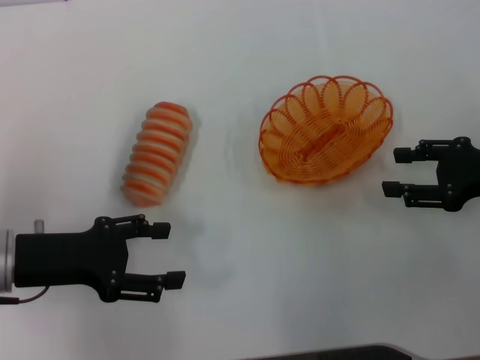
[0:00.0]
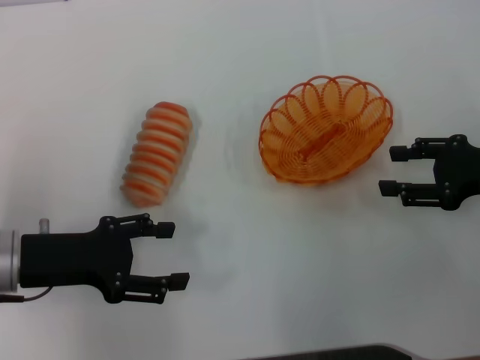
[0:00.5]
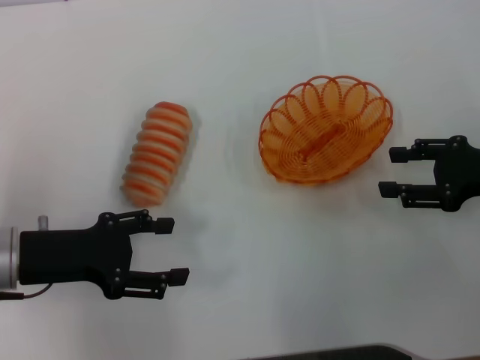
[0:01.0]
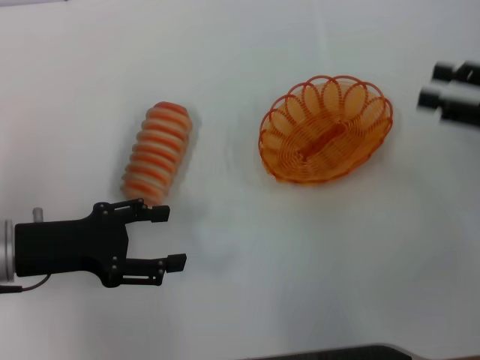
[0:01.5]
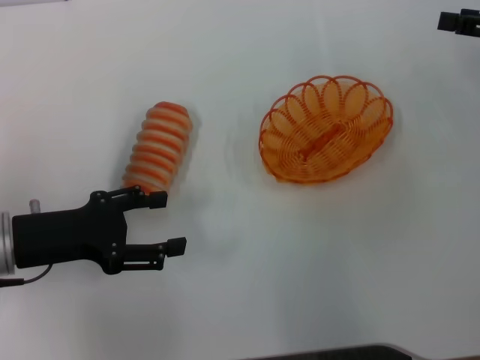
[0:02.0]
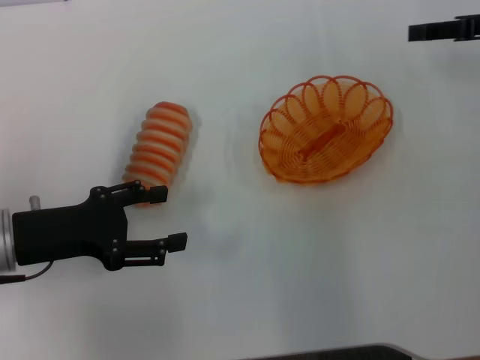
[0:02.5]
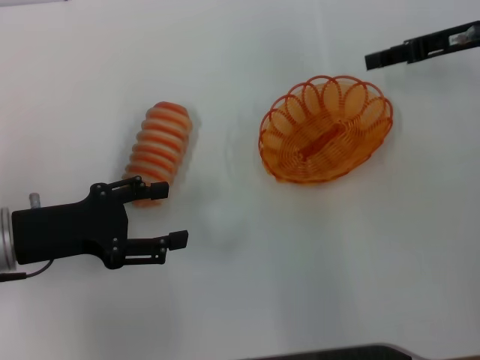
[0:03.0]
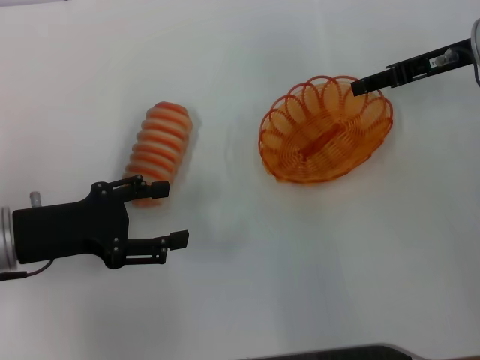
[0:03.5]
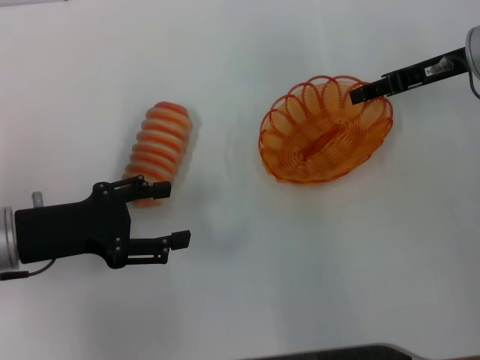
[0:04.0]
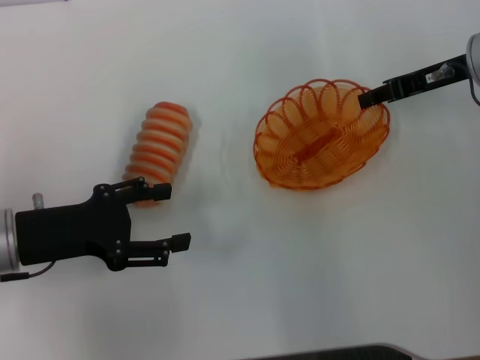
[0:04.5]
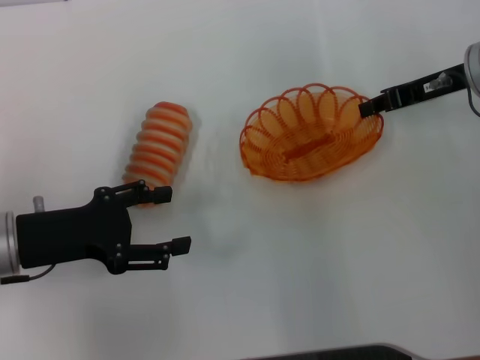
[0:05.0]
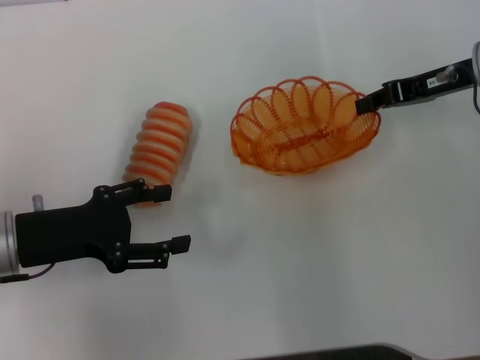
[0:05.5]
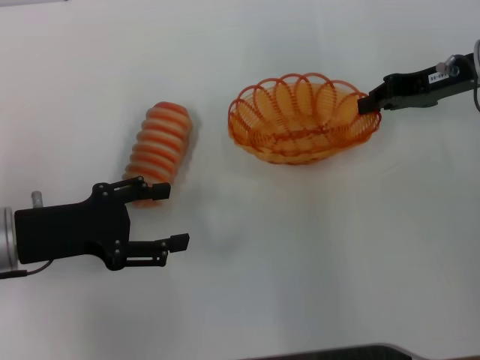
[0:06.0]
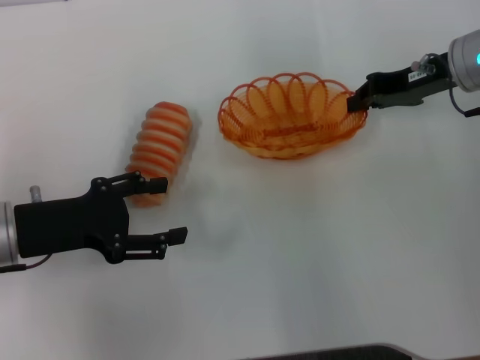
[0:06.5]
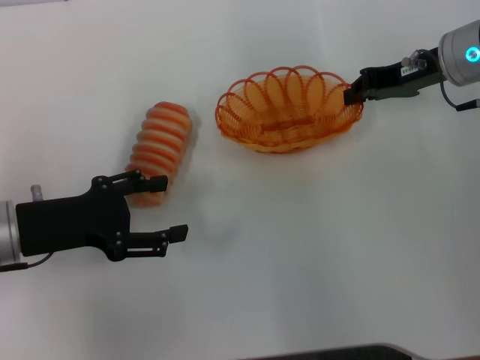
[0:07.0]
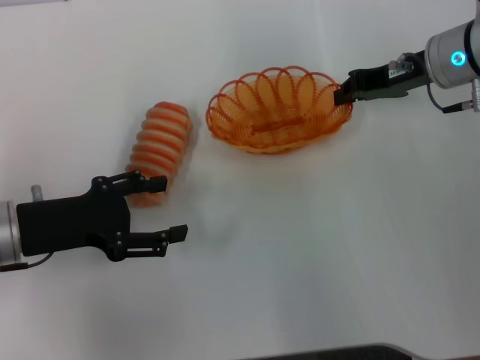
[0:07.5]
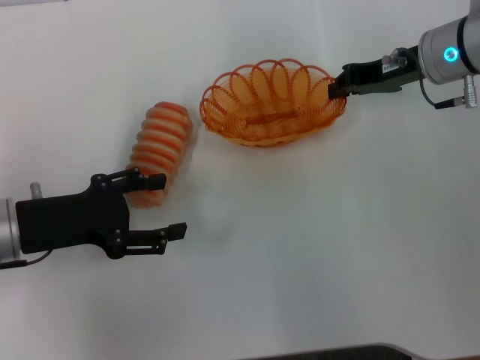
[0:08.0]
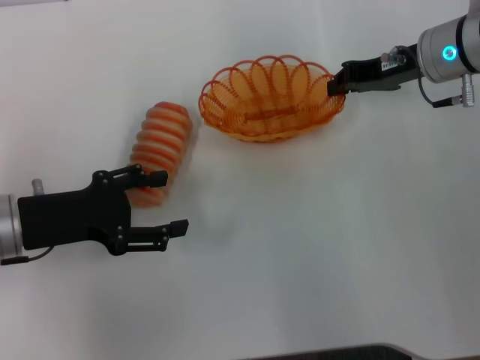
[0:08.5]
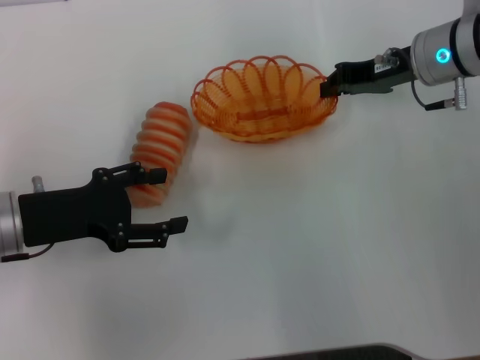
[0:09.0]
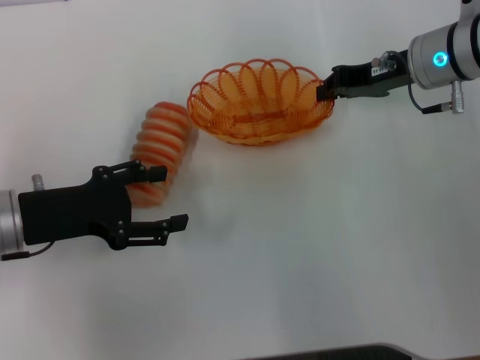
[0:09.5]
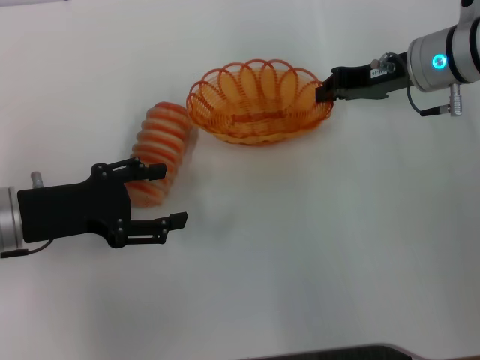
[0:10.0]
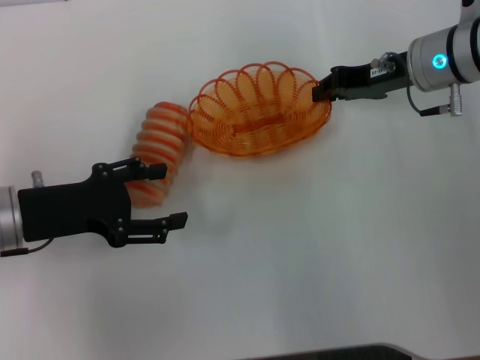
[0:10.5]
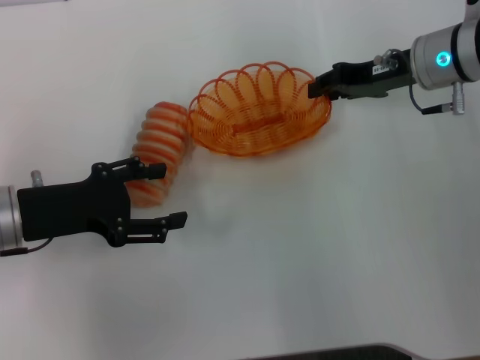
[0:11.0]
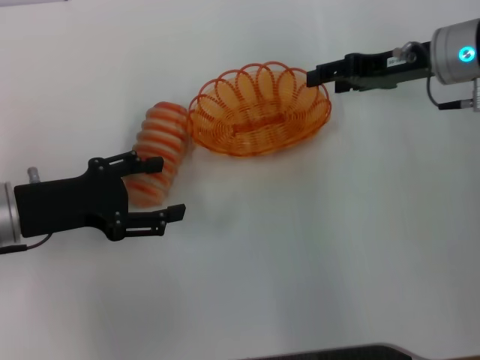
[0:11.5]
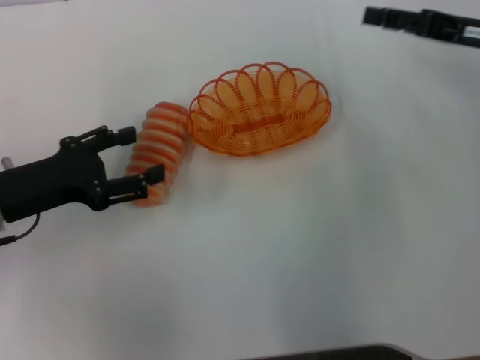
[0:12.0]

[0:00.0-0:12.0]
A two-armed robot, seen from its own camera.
Step, 0:00.0 to 0:05.5: Pick up the basket with the right gripper.
Step, 0:06.0 to 0:11.5: Place the basket in the center of view with the right gripper.
0:00.0 to 0:02.0: The right gripper travels upward and forward by roughly 10 cm.
0:02.0 to 0:04.0: The right gripper goes roughly 10 cm to the left and forward.
0:04.0 to 0:06.0: The right gripper closes up.
0:06.0 to 0:08.0: The right gripper changes place by approximately 5 cm.
0:08.0 to 0:10.0: The two grippers keep their place.
0:10.0 to 0:12.0: The right gripper goes some 10 cm to the right, and opens.

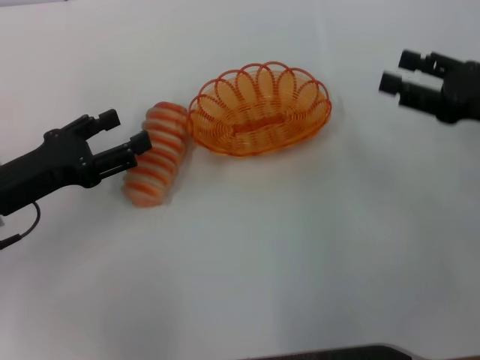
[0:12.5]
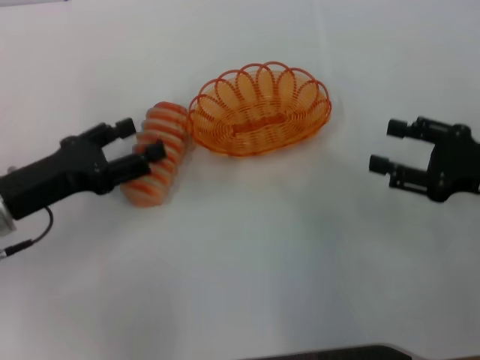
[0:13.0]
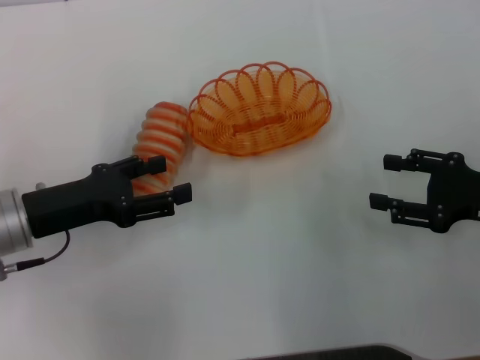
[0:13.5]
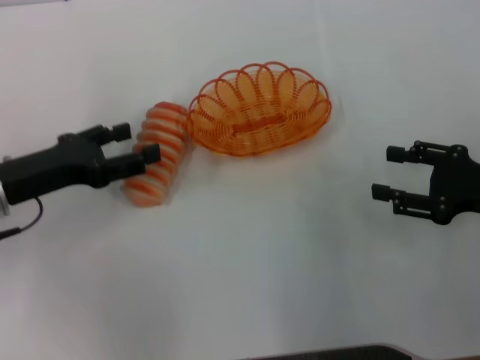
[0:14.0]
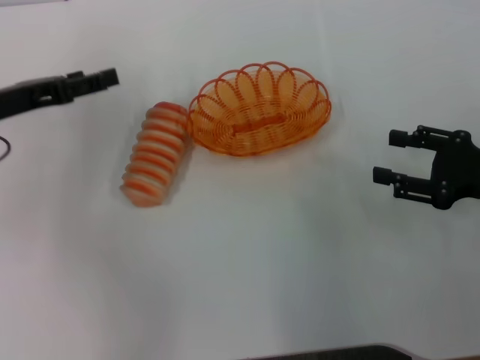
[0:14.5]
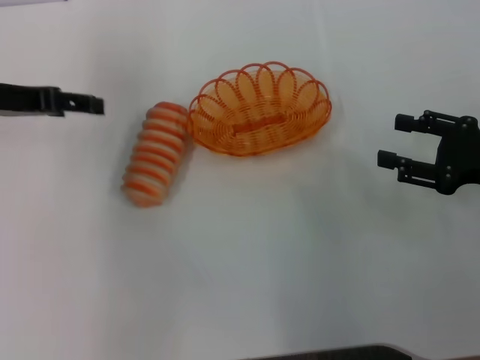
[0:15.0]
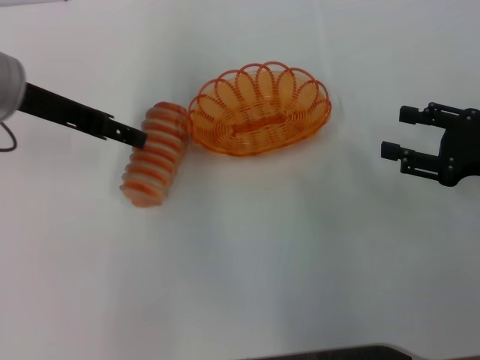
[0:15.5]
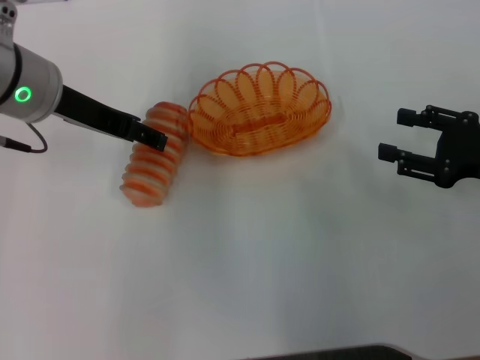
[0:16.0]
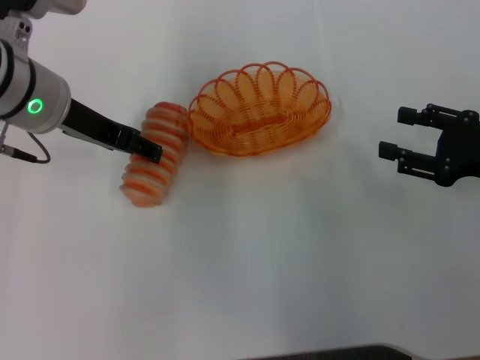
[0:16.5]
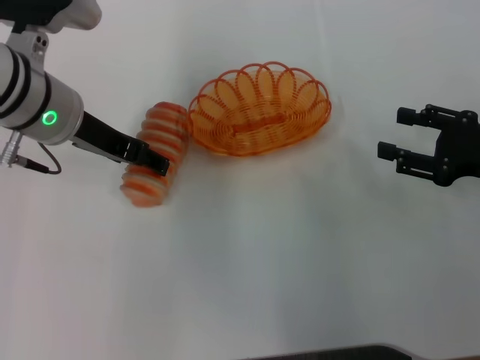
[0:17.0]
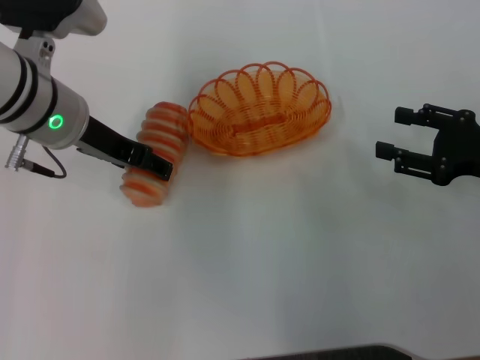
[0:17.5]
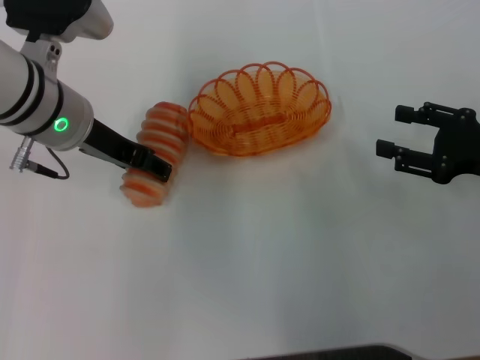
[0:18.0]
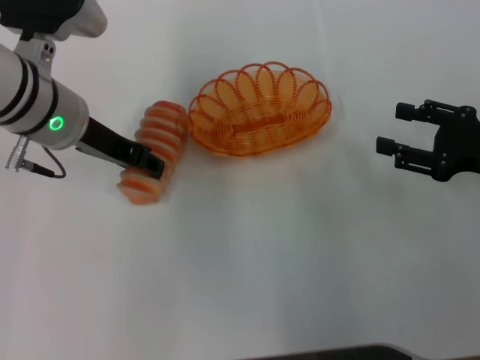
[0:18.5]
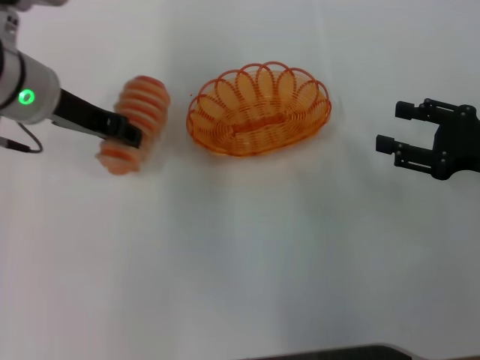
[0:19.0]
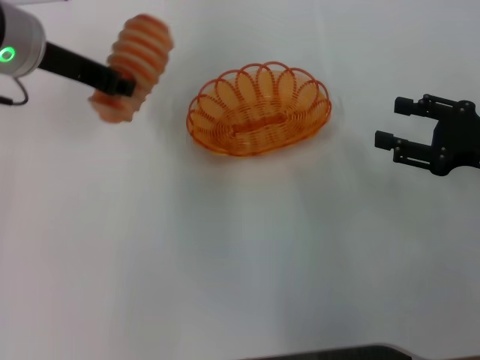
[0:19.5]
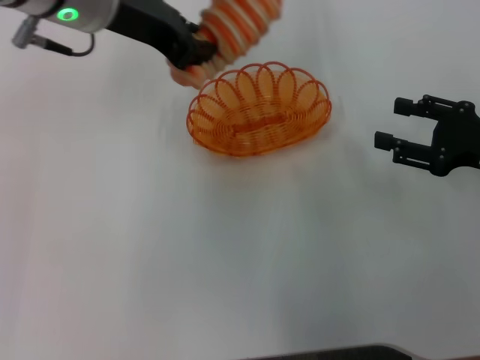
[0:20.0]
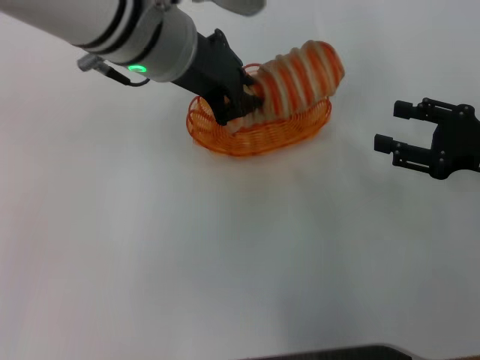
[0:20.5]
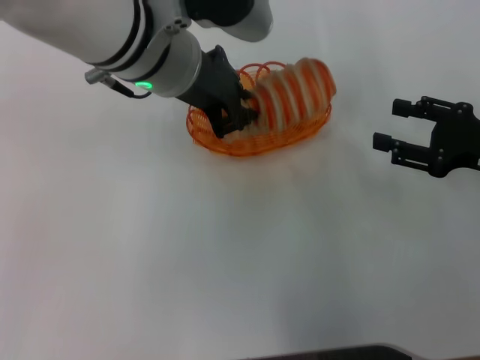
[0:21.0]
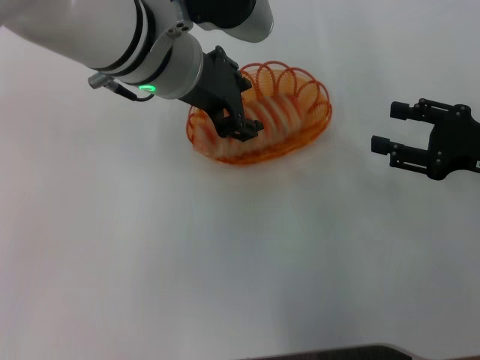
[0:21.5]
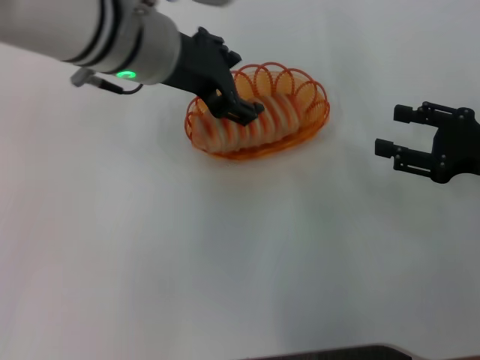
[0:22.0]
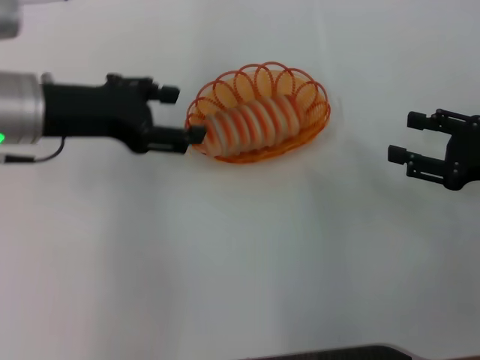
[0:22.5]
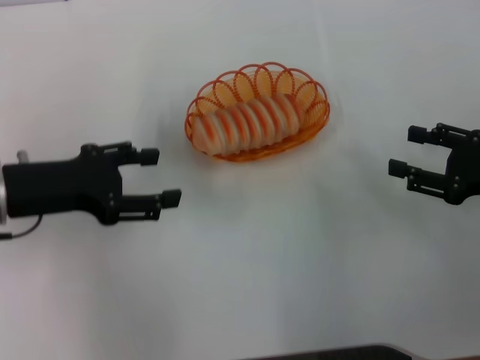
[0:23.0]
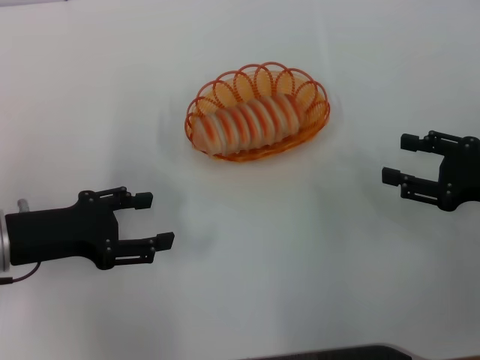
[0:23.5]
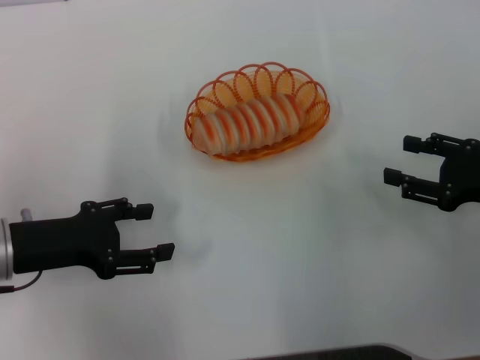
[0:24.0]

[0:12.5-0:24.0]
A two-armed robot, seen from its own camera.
Step, 0:12.5 to 0:19.0: Pick up the long bread with the left gripper.
Step, 0:19.5 to 0:22.0: Place the long bread into the basket with the left gripper.
0:12.5 to 0:14.5: The left gripper travels forward by some 5 cm.
0:14.5 to 0:16.5: The left gripper moves to the right, approximately 10 cm.
0:16.5 to 0:18.5: The left gripper closes up.
0:18.5 to 0:20.0: The left gripper goes roughly 10 cm upward, and closes up.
0:20.0 to 0:22.0: The left gripper ends up about 5 cm from where it was, and opens.
0:22.0 to 0:24.0: The left gripper moves to the left, downward and backward, about 25 cm.

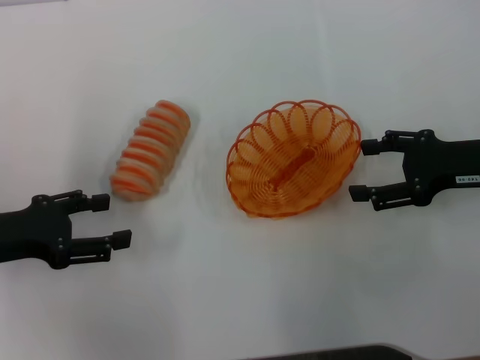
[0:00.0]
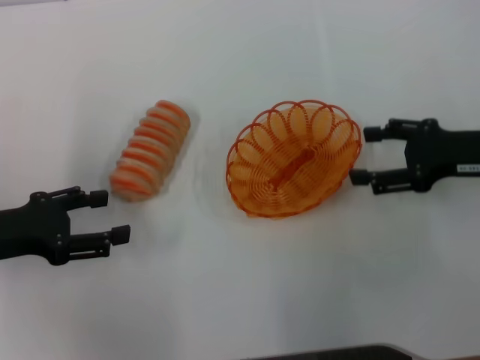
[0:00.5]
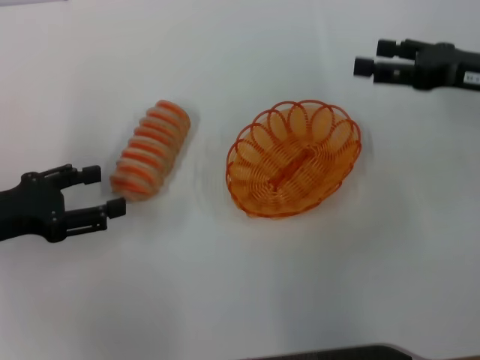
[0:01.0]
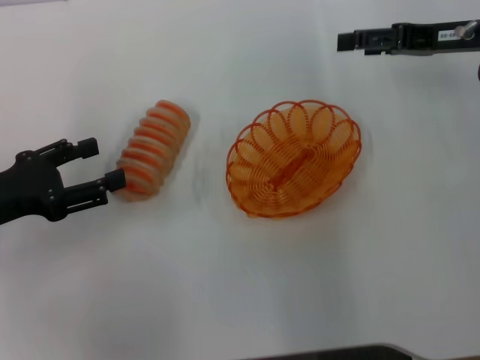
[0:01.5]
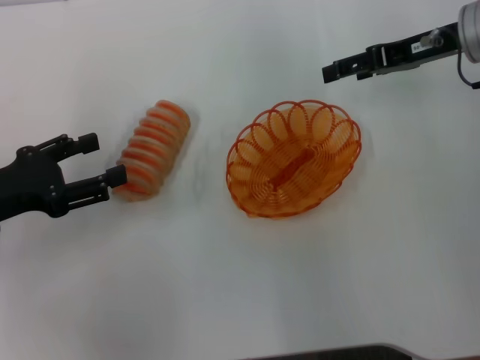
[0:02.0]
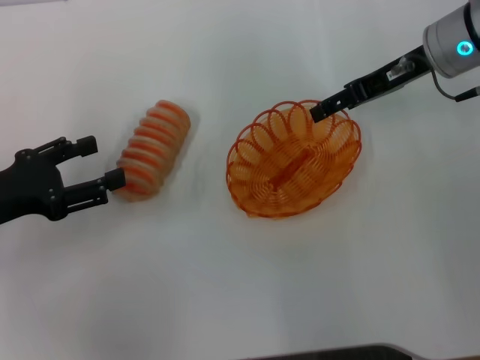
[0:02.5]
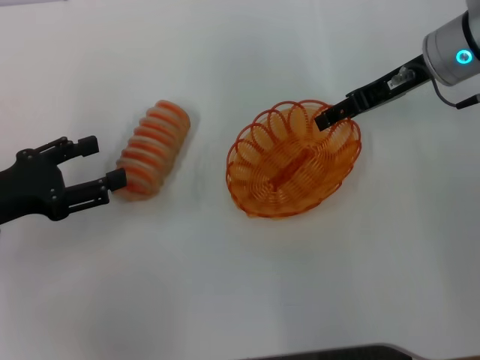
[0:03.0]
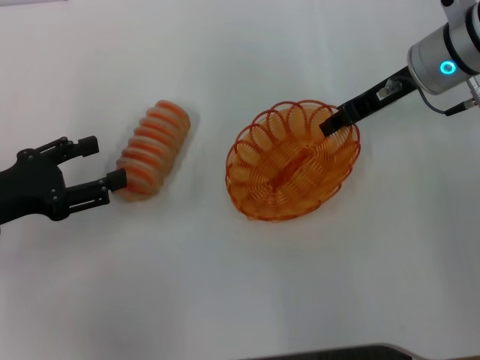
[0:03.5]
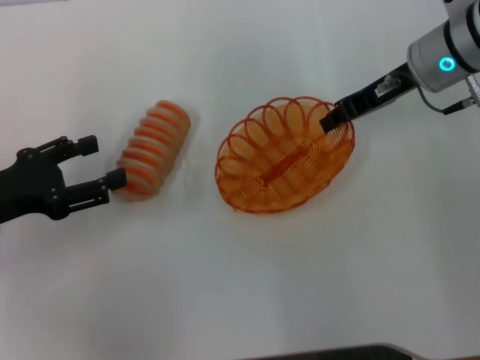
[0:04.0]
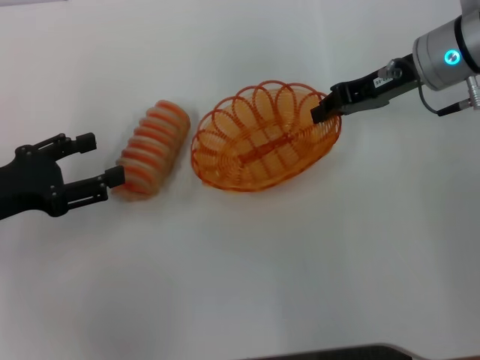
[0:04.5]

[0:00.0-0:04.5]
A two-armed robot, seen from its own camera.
Step, 0:00.0 to 0:04.0: Pick up the basket with the right gripper.
0:00.0 to 0:02.0: The right gripper heads forward and upward, covering some 15 cm.
0:02.0 to 0:04.5: The right gripper closes its fingers.
